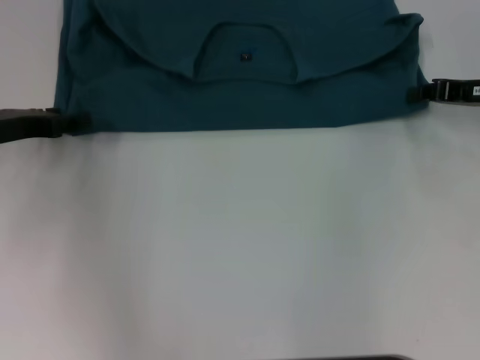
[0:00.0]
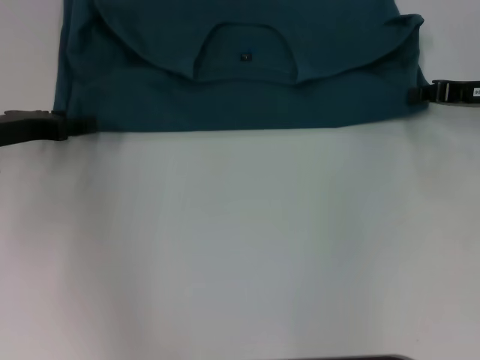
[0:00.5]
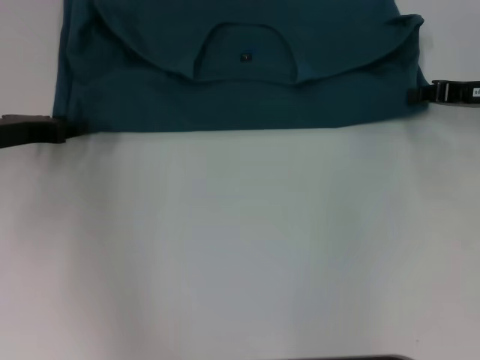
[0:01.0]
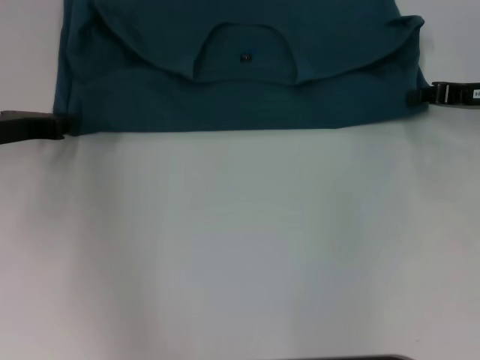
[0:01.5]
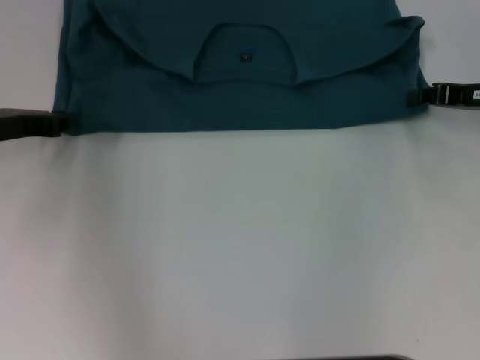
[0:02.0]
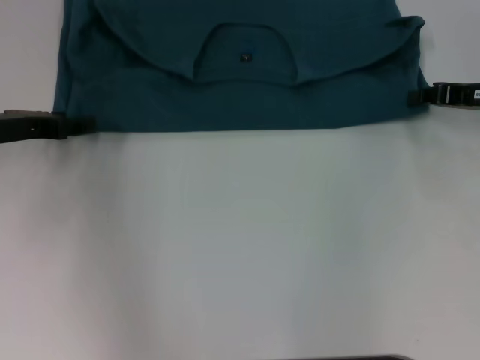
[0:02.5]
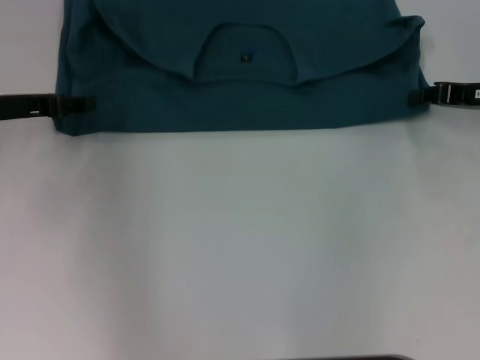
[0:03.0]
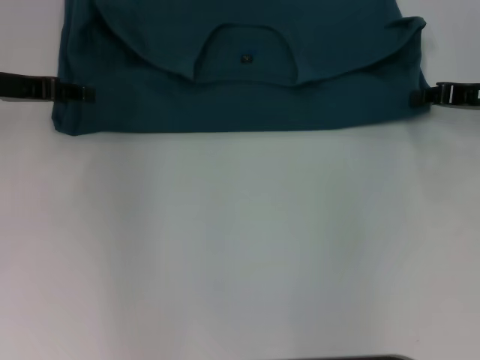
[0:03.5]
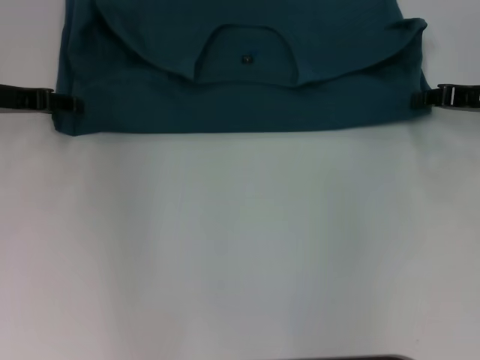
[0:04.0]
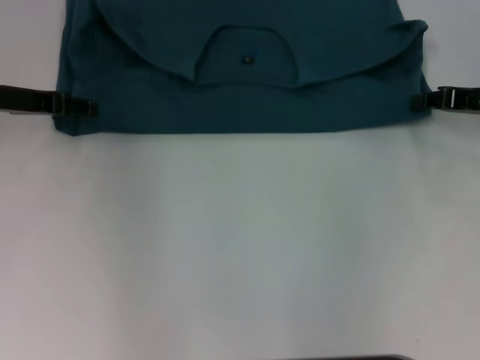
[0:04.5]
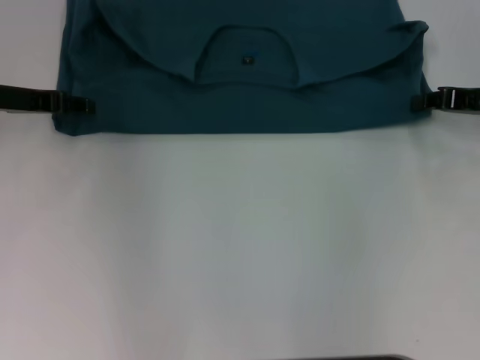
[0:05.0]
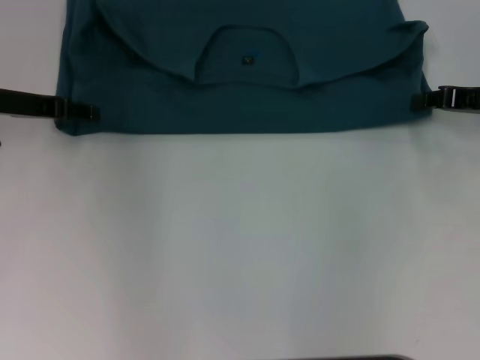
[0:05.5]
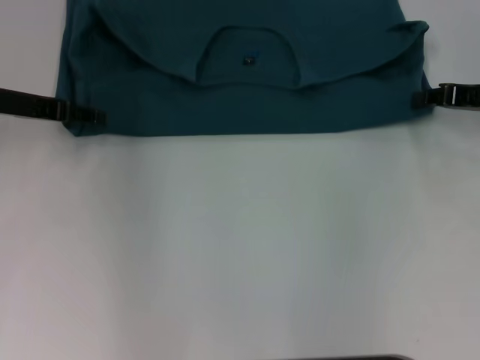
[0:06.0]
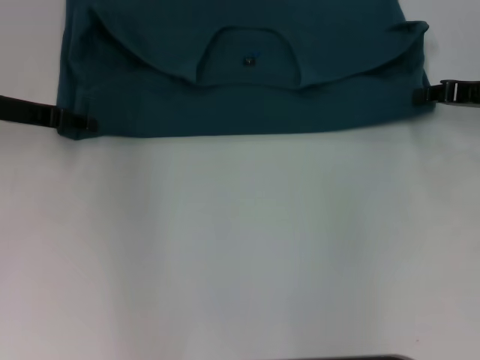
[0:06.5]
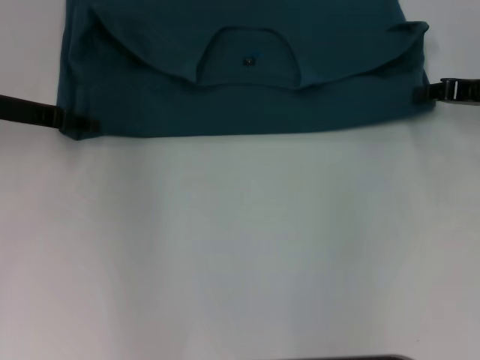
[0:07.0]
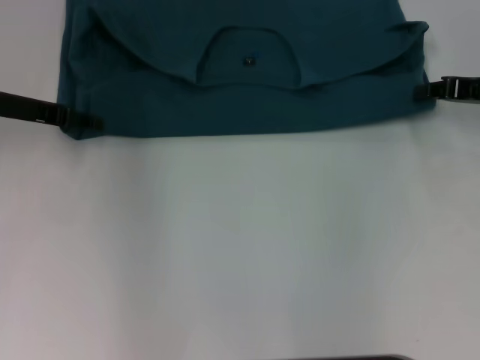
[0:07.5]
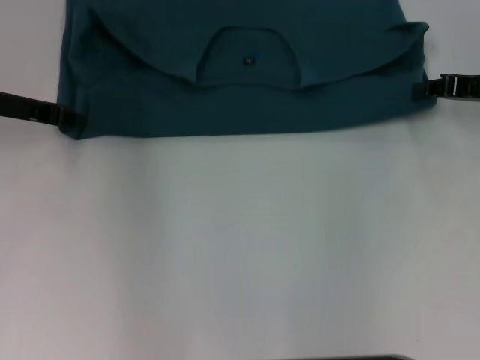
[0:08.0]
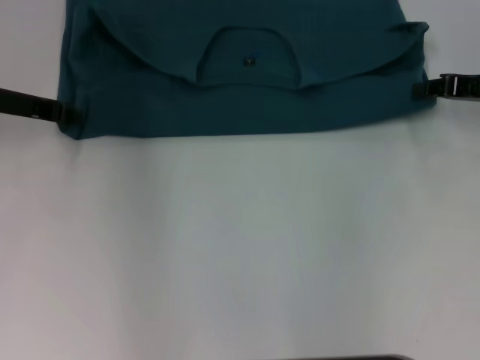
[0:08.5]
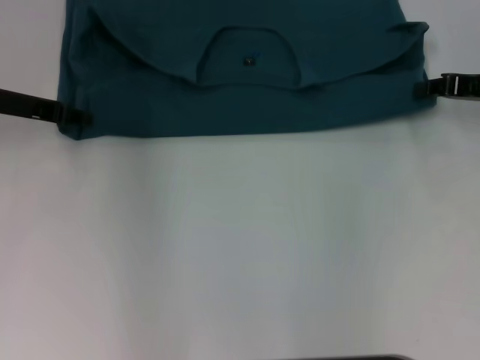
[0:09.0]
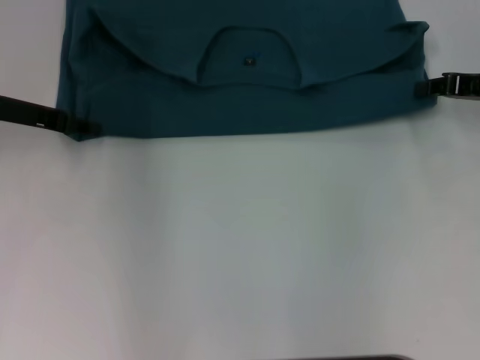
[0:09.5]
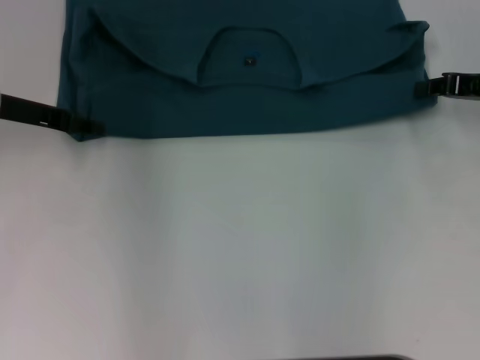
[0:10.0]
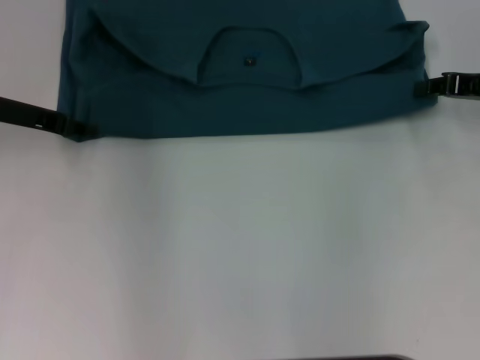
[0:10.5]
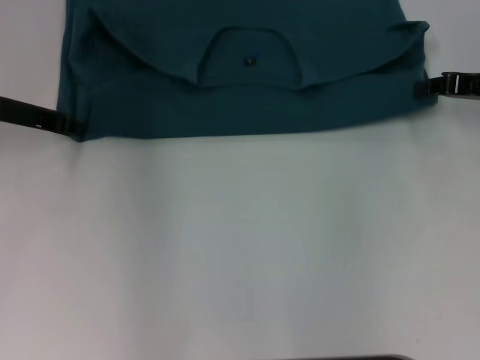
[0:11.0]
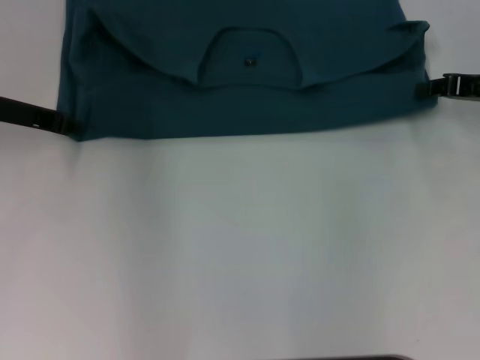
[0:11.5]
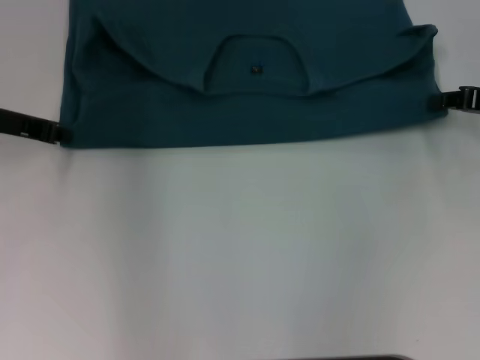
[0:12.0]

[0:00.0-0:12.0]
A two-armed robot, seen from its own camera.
0:02.0 to 0:04.0: The left gripper moves roughly 5 cm, and opens up.
0:04.0 to 0:08.0: There are only small adjustments of the grippers.
0:08.0 to 0:10.0: The two grippers keep their place.
0:10.0 to 0:12.0: The left gripper closes up.

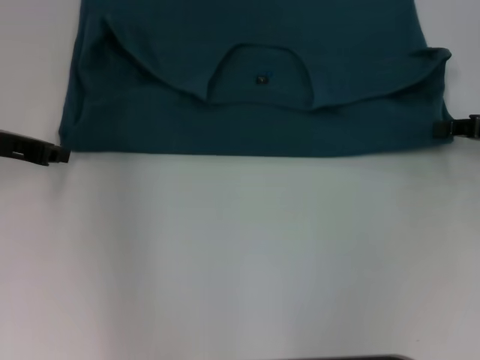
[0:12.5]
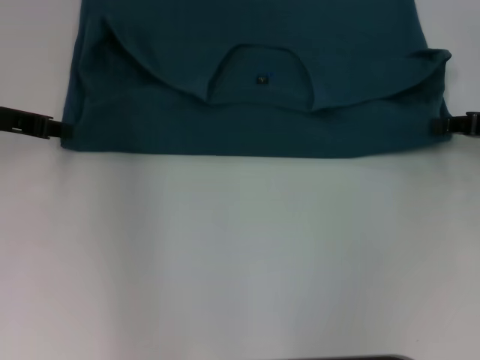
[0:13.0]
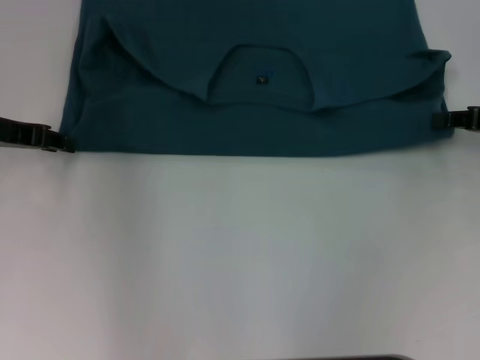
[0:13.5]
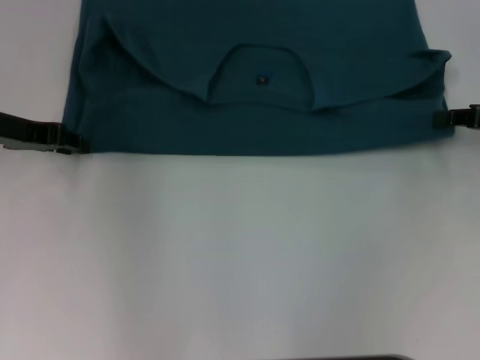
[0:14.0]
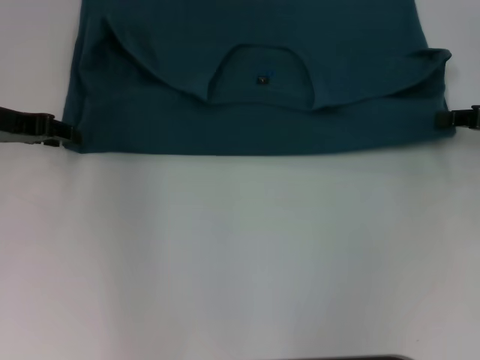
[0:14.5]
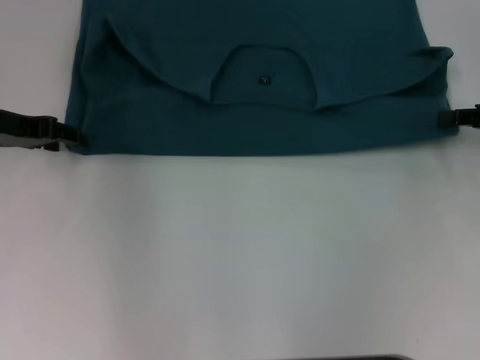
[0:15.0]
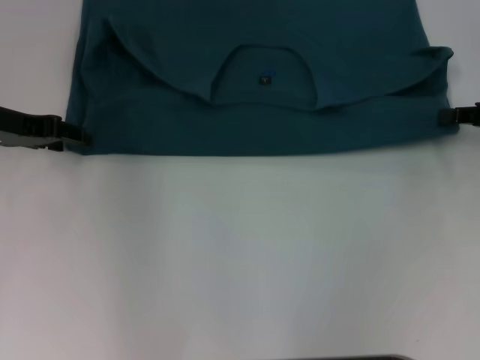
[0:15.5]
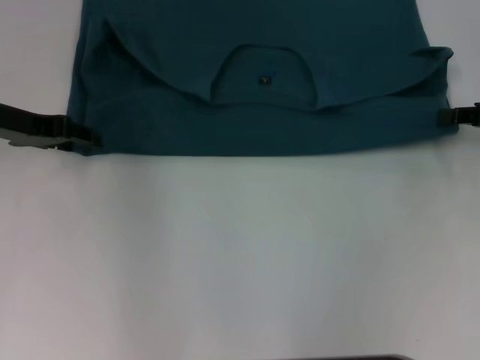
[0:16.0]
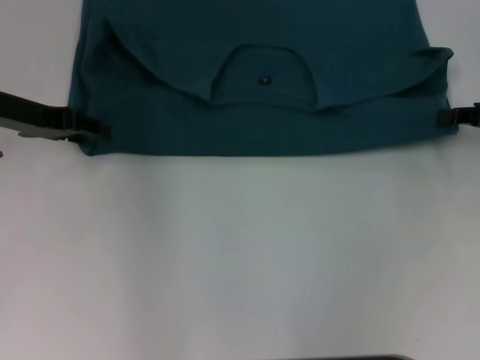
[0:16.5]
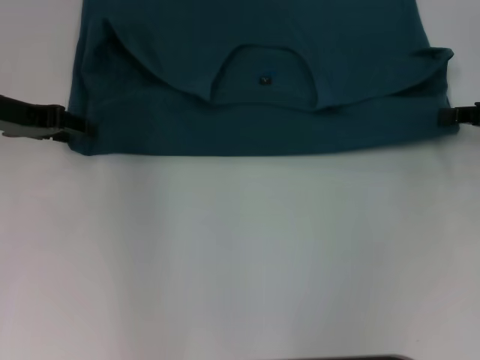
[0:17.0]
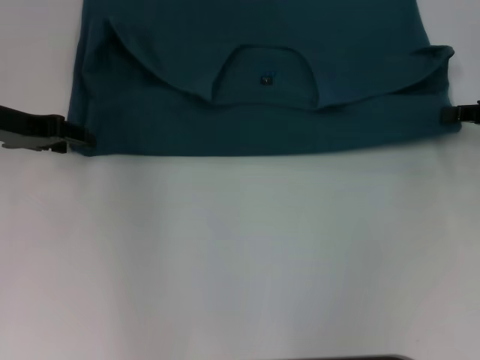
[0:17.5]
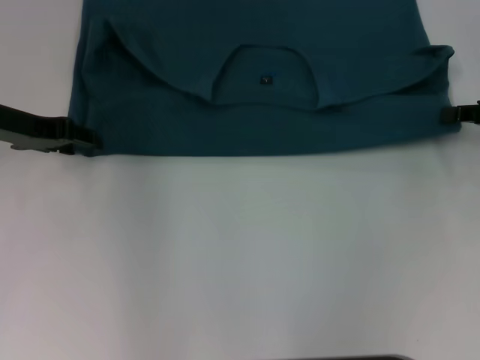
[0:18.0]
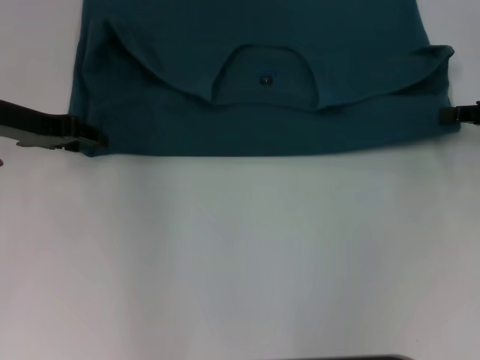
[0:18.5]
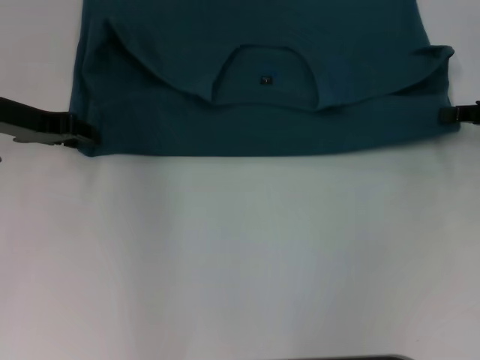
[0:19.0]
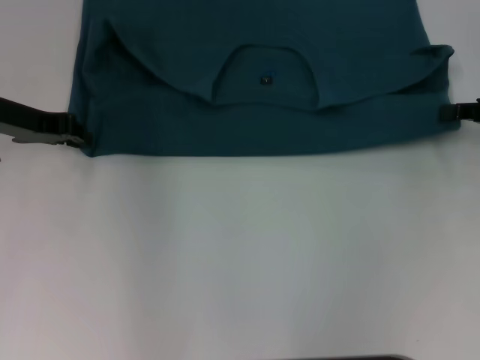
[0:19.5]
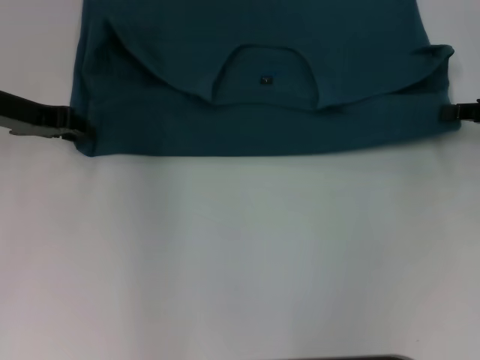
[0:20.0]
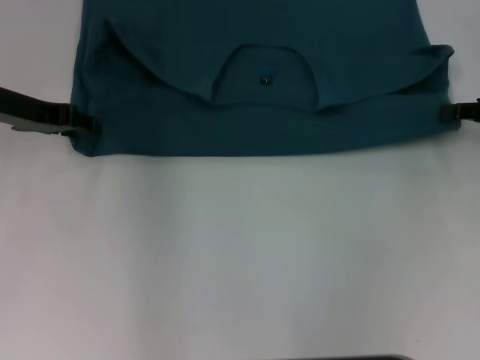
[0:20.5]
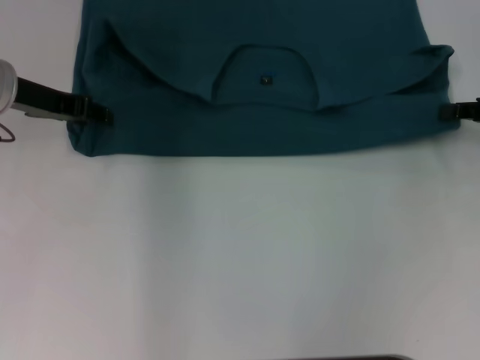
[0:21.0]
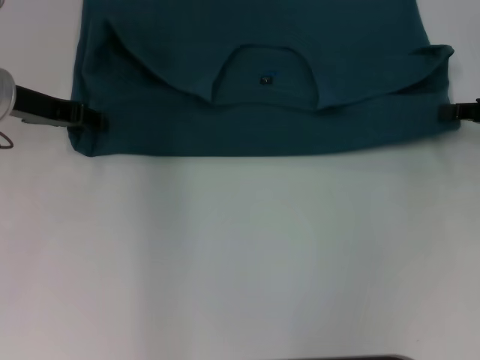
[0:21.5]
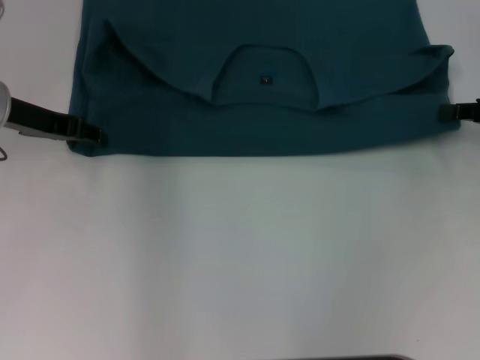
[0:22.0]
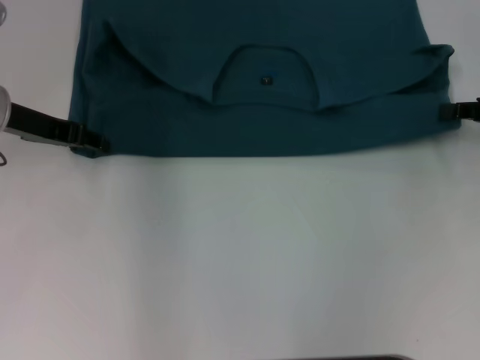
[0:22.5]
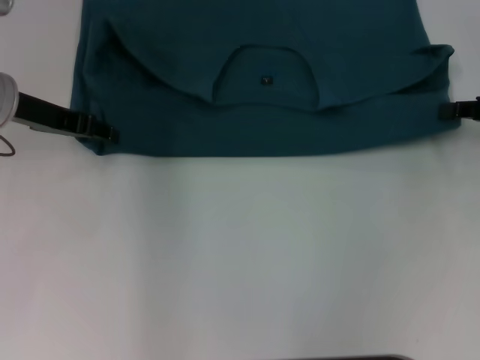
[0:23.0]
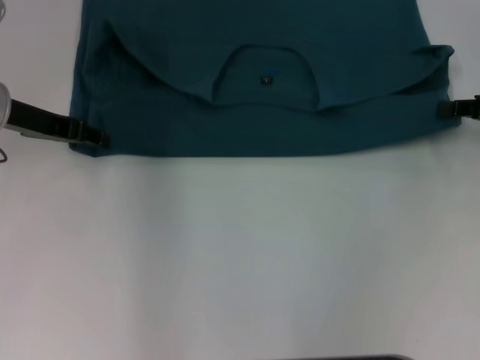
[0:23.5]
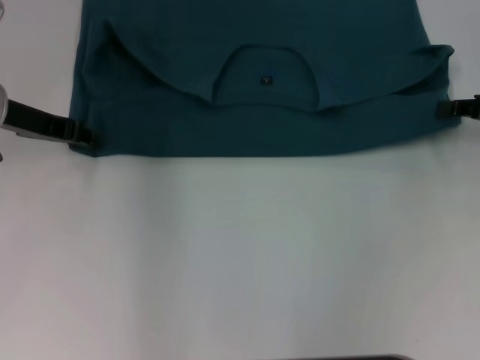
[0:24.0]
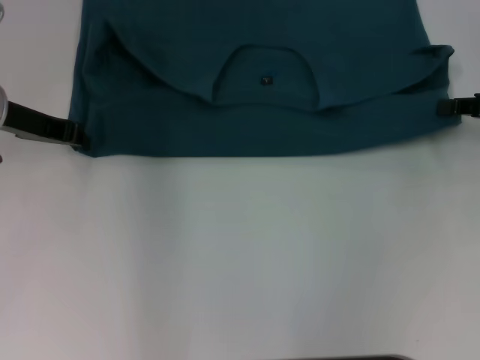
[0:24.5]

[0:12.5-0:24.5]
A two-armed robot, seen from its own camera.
0:12.5 to 0:20.5: The grippers make only small movements.
0:20.5 to 0:22.5: The grippers move only a little.

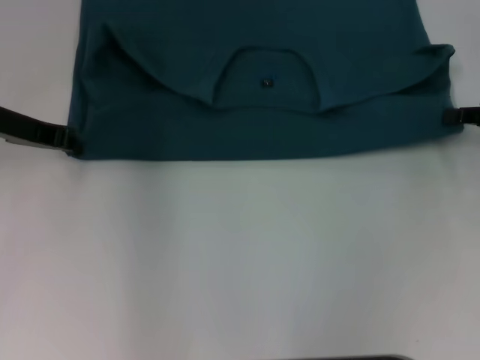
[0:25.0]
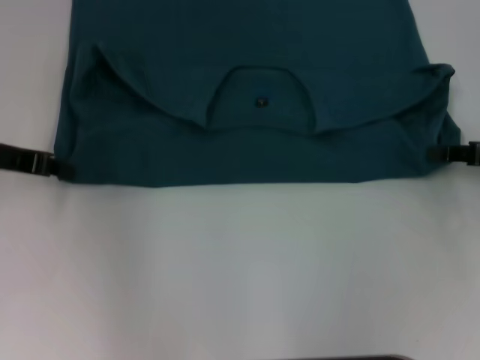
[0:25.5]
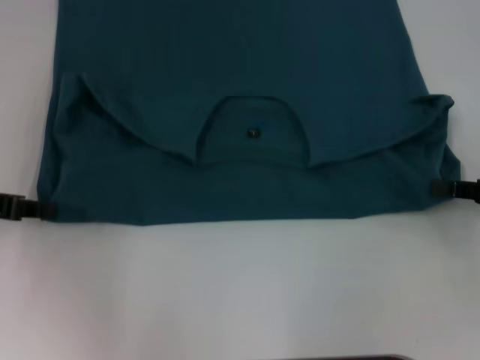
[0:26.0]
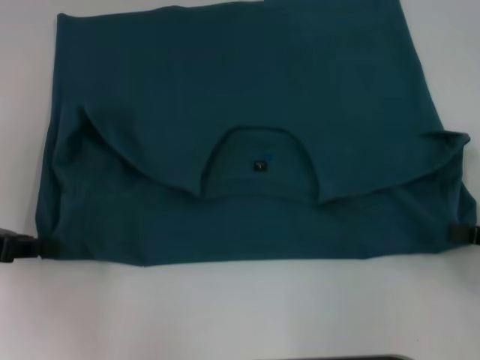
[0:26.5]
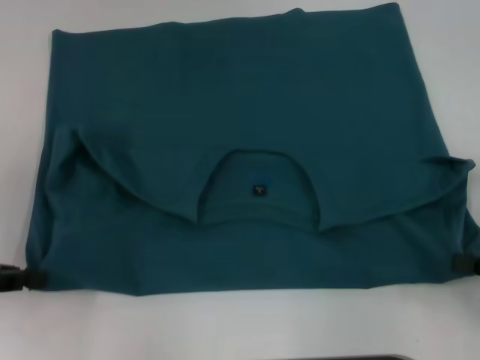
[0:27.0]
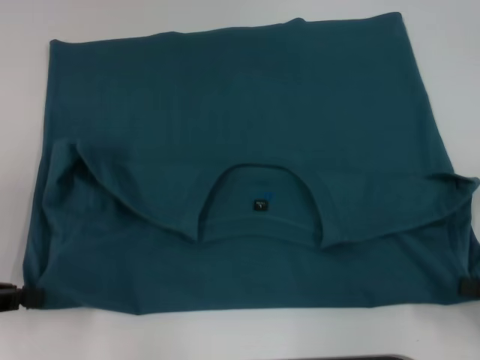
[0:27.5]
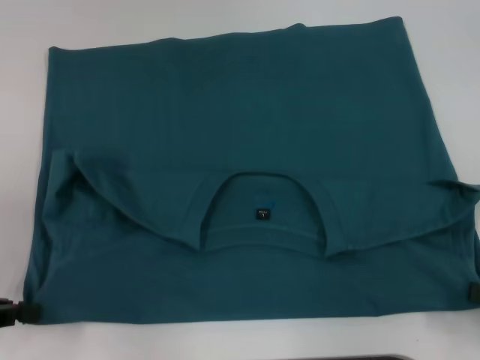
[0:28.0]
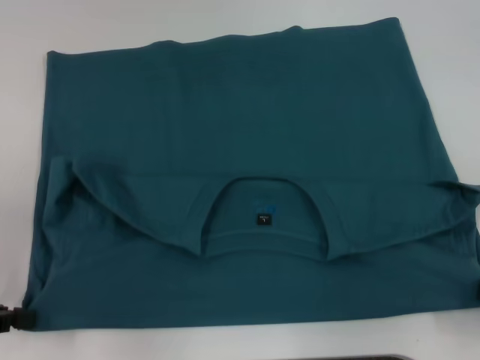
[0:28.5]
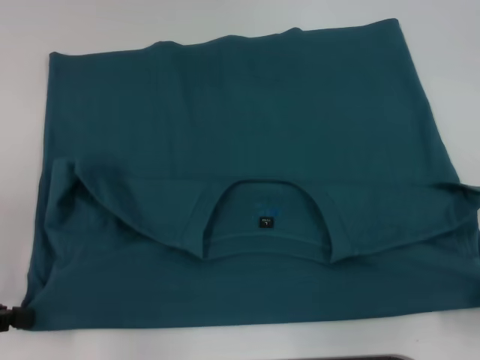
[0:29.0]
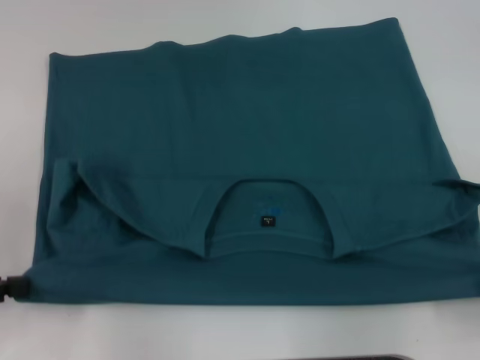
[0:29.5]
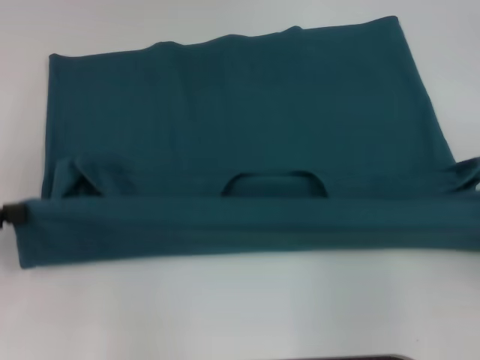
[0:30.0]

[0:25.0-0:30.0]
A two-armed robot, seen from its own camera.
Step, 0:25.0 to 0:29.0: Pull the clothes with your left hand.
Step, 0:25.0 to 0:29.0: Pull the clothes with your right hand.
0:25.0 to 0:27.5: The right gripper heads backward, covering approximately 15 cm, while the left gripper moves backward and to the left, some 20 cm.
